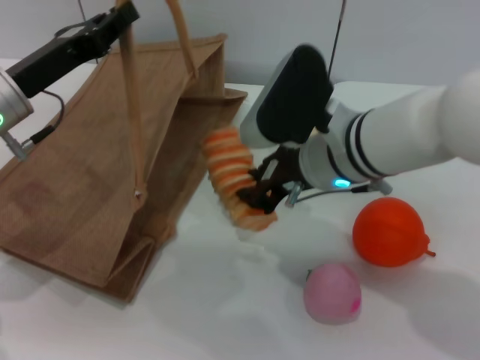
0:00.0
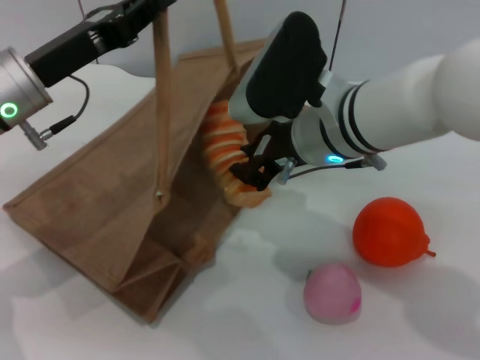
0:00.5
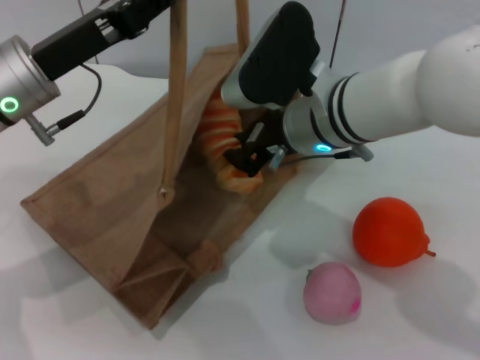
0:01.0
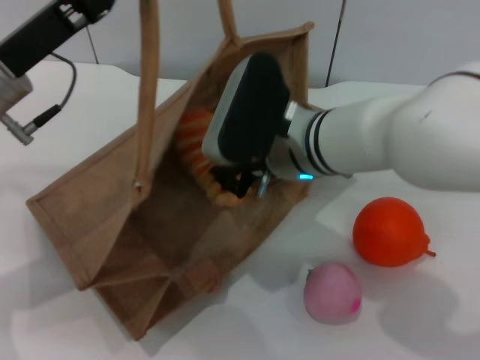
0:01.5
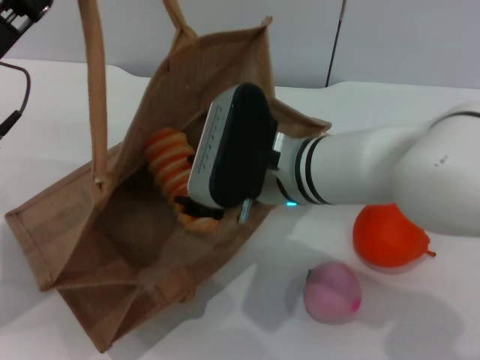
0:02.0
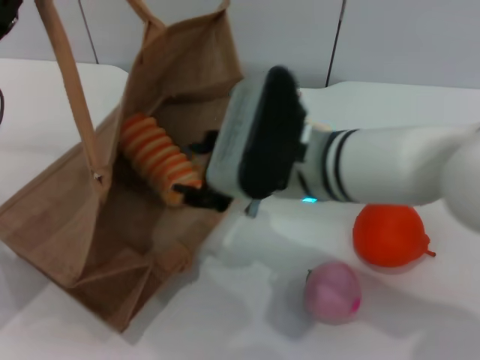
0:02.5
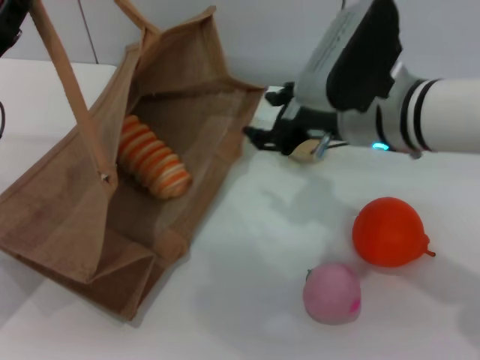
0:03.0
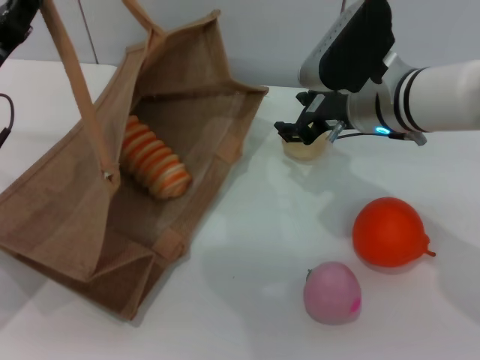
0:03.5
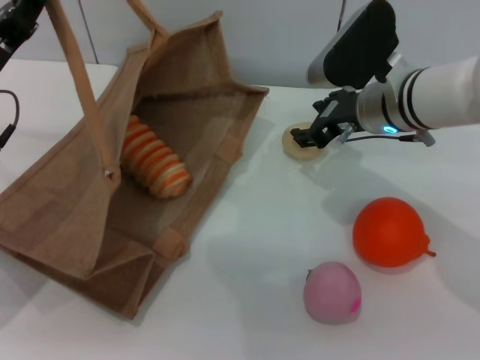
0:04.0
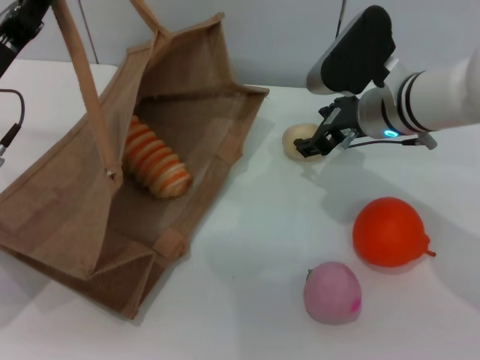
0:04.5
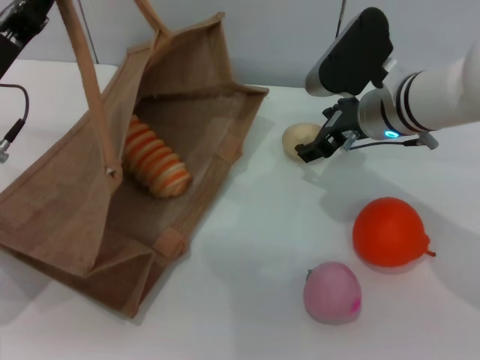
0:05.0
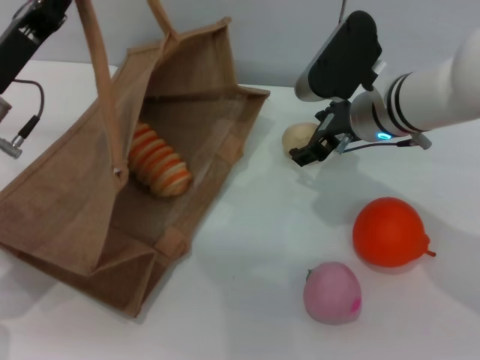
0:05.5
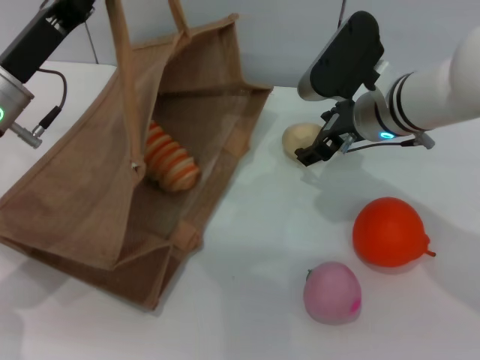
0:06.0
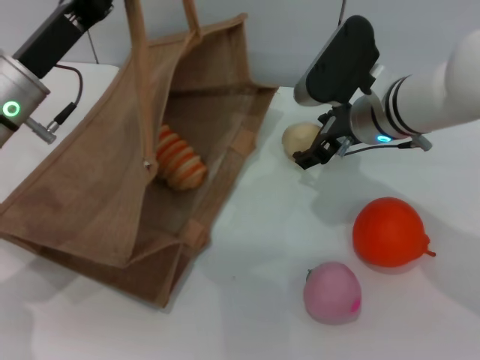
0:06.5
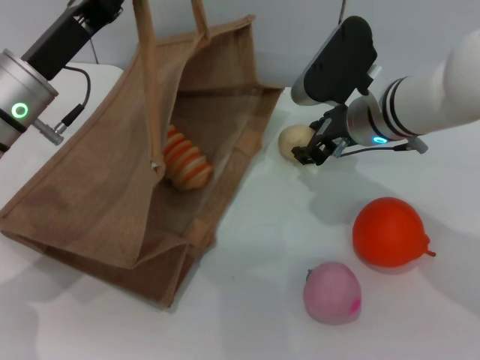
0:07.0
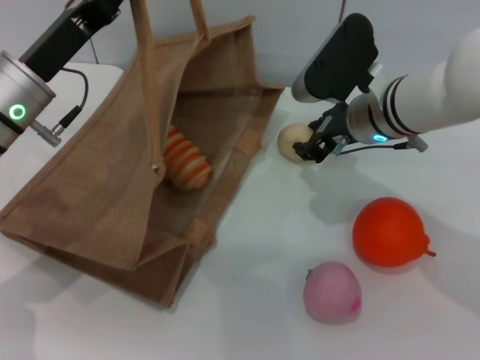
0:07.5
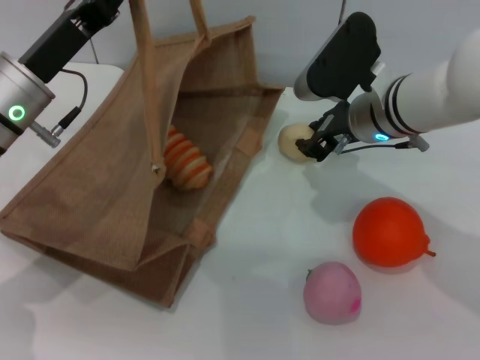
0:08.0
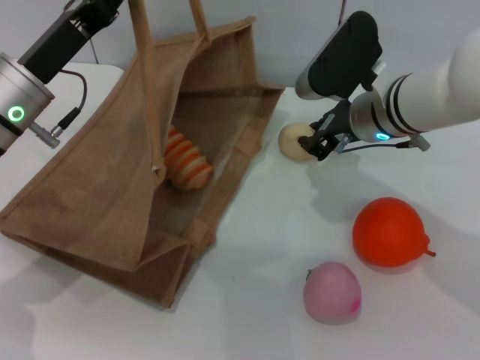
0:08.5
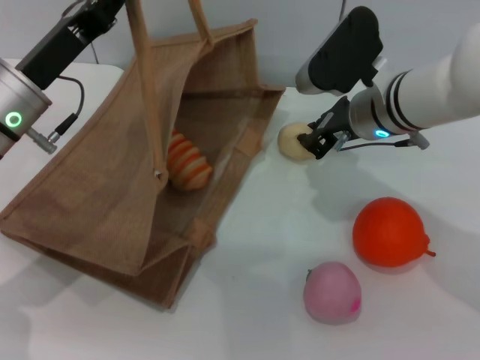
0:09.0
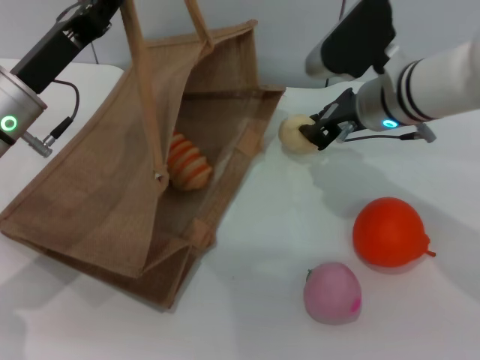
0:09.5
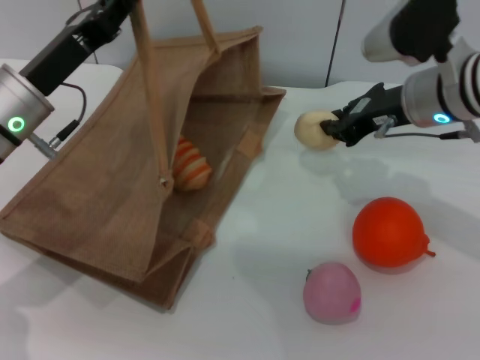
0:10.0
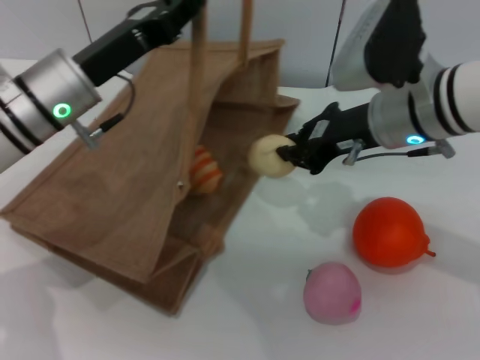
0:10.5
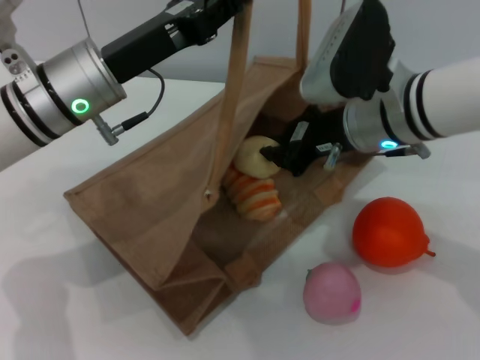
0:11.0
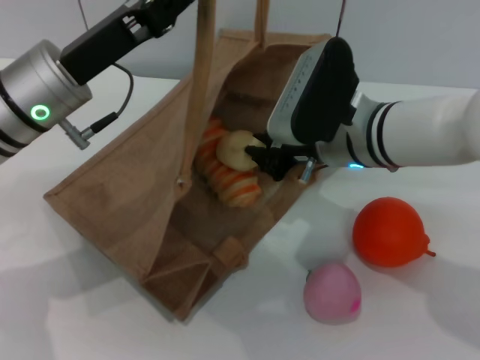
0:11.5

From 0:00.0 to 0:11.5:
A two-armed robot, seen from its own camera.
Task of the whole recording: pick up the bread and egg yolk pastry from the table and place it in the brown handbag.
Step, from 0:00.0 to 0:03.0: Place the bread into the woven bag with the right gripper.
Step, from 0:03.5 to 0:10.0: Pick up the egg yolk pastry with the right gripper.
From 0:02.0 to 0:04.0: The right gripper moves to the right and forward, approximately 15 cm.
From 0:04.0 to 0:06.0: The grippers move only a little.
From 0:06.0 to 0:07.5: The right gripper closes its fingers.
From 0:07.5 to 0:09.5: The right gripper closes.
From 0:09.5 to 0:11.5: The left gripper changes place by about 5 cm. Meanwhile the right gripper travels backward by approximately 5 cm.

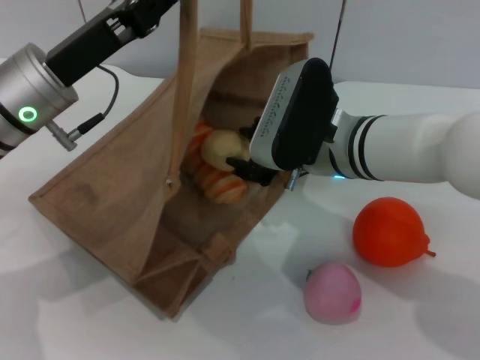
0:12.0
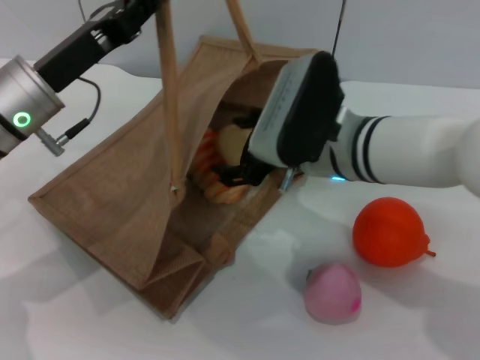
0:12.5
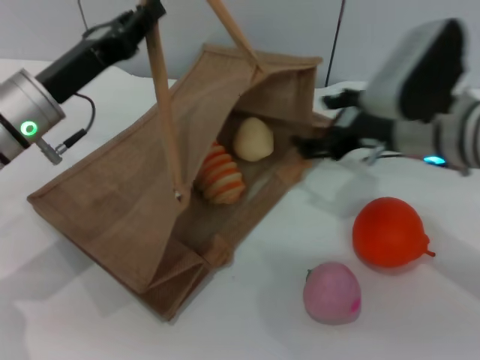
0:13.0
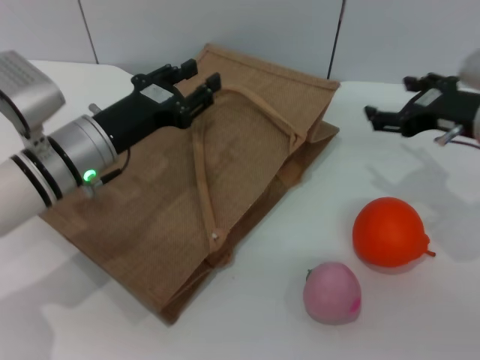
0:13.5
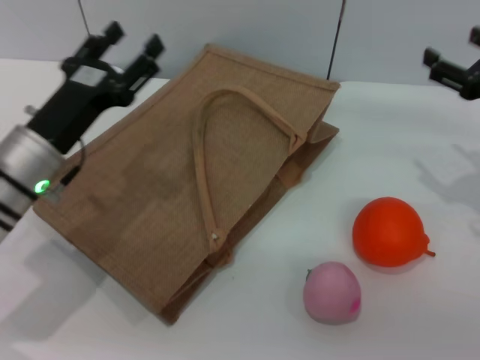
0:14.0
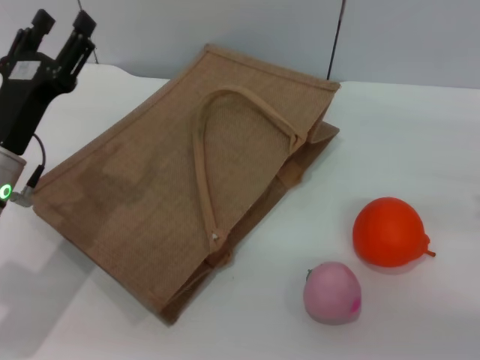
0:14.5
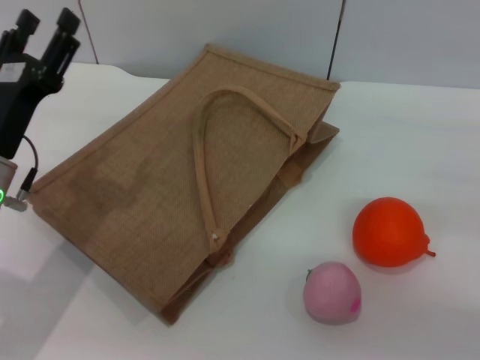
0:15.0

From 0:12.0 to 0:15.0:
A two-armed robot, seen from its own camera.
Task of the whole recording: pick up the bread and egg yolk pastry from the table and place it in the brown handbag.
Step, from 0:13.0 to 0:14.0: Lower the woven bag with the left gripper to close it.
From 0:12.0 to 0:13.5: The right gripper travels to the right by about 15 cm, and opens its fingers. Meanwhile the left gripper travels downward by approximately 5 cm.
From 0:13.5 to 0:15.0: The right gripper is displaced to the right and backward by roughly 15 cm; the left gripper goes about 10 cm backward and to the left, and opens its fingers.
